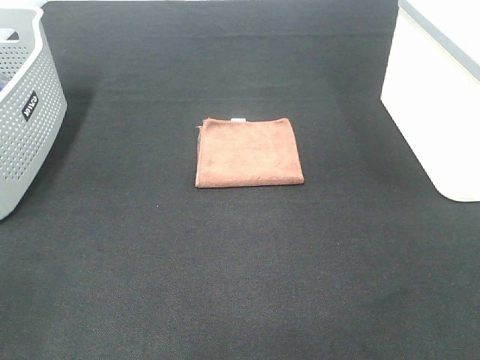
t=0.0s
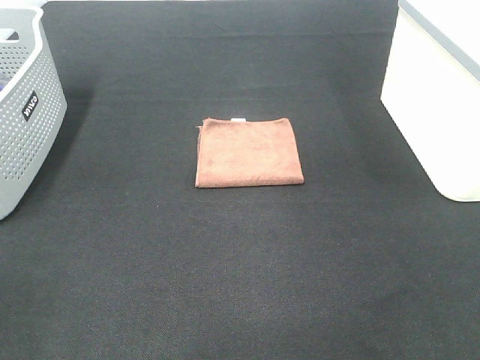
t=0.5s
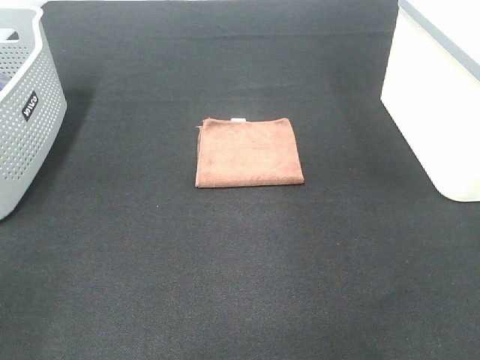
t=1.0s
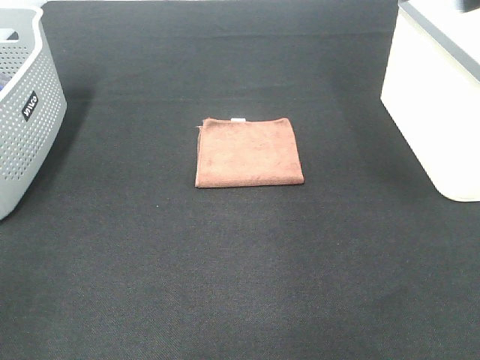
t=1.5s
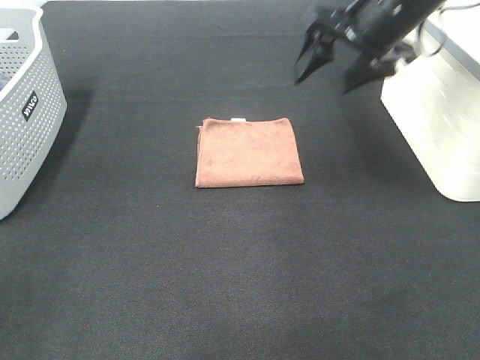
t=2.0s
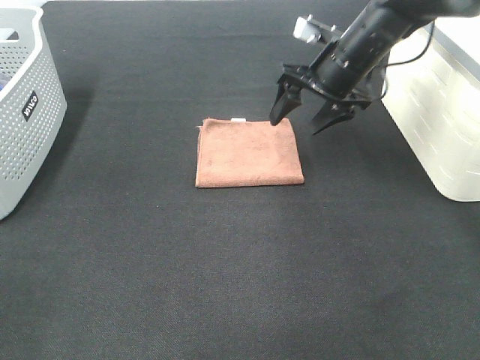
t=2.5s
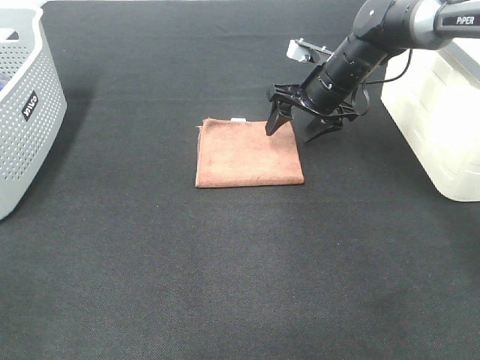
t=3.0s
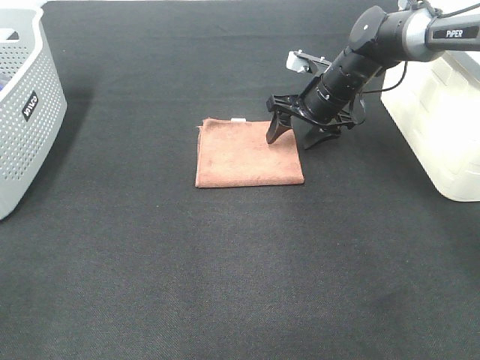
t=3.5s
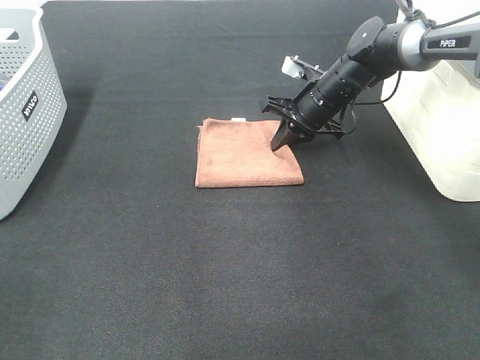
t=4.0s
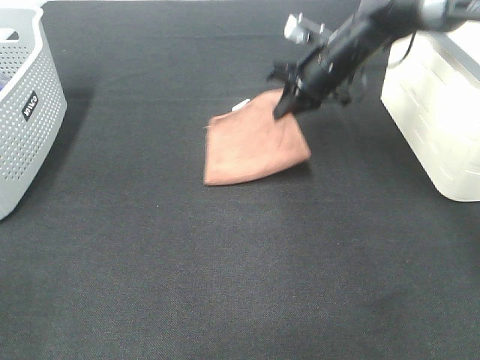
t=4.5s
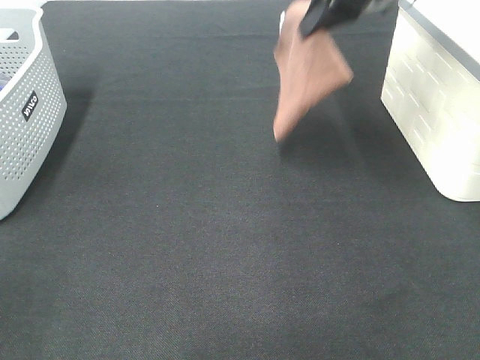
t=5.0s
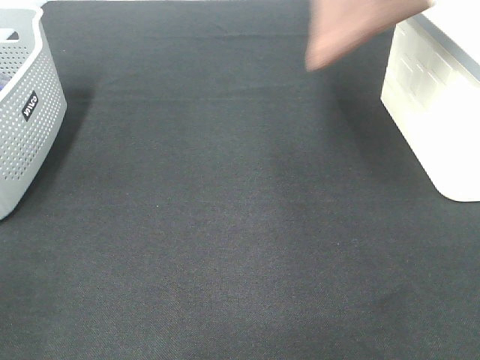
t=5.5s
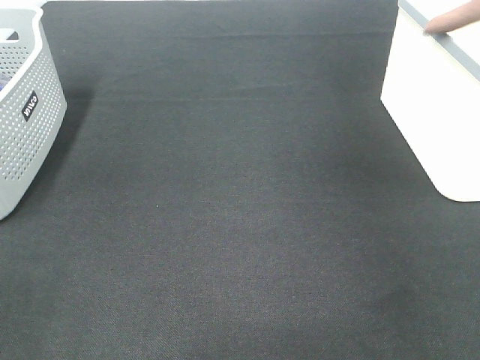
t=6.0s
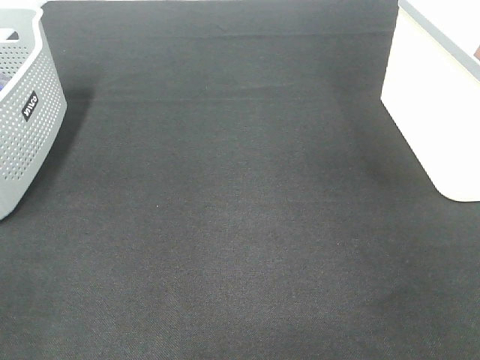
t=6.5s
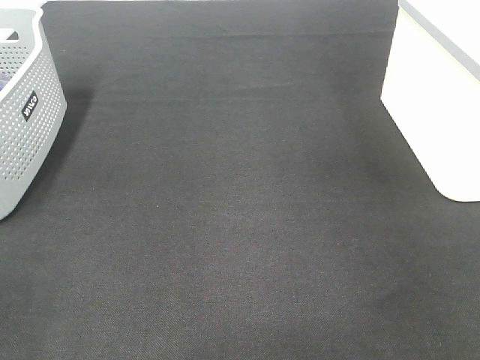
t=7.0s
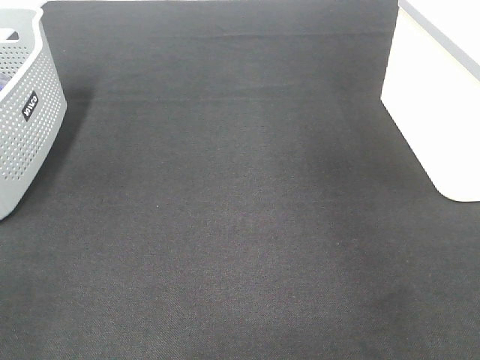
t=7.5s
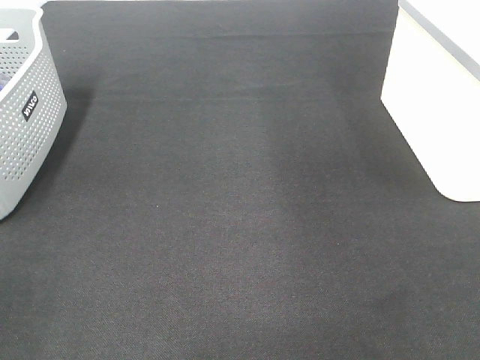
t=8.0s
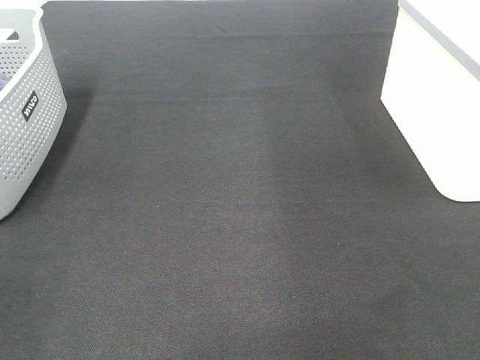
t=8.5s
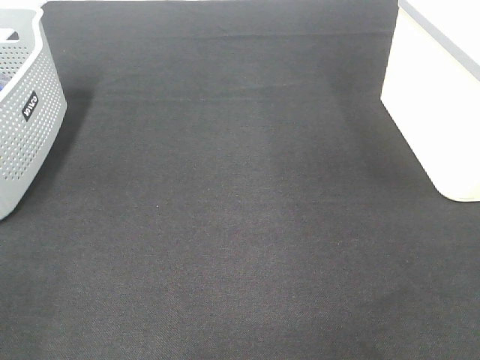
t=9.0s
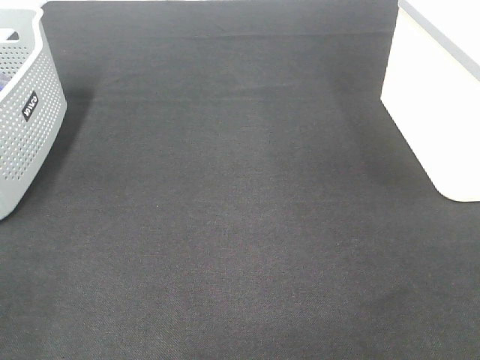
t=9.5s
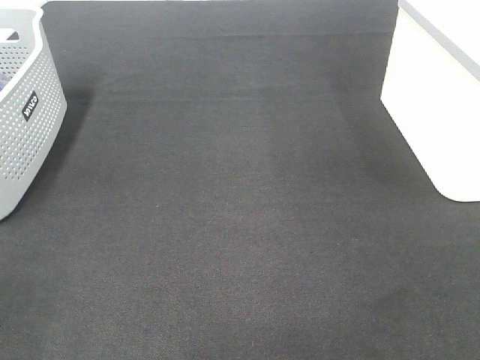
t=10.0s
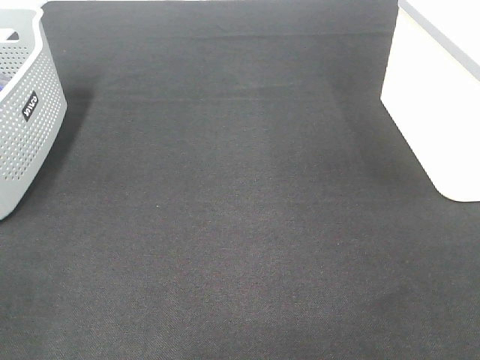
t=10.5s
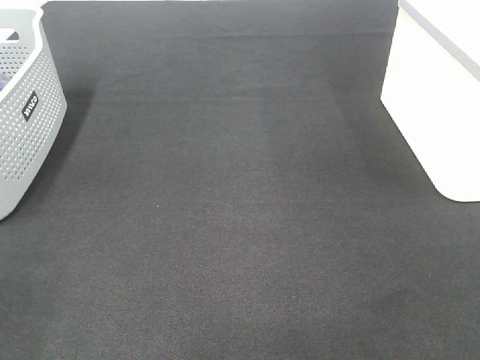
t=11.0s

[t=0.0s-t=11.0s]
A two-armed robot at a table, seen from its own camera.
Step, t=0.0s to t=4.0s: Right hand: grab the folded brown towel.
Step, t=4.5s to t=6.5s: Right hand: place the brown towel in right basket.
t=0.0s to t=2.0s: The right gripper moves forward, about 40 cm.
t=2.0s to t=3.5s: The right gripper travels downward and forward by some 20 cm.
t=3.5s to t=5.5s: The right gripper is displaced upward by some 30 cm, and closes up.
t=5.5s to t=7.5s: The right gripper moves to the right, roughly 10 cm, and opens.

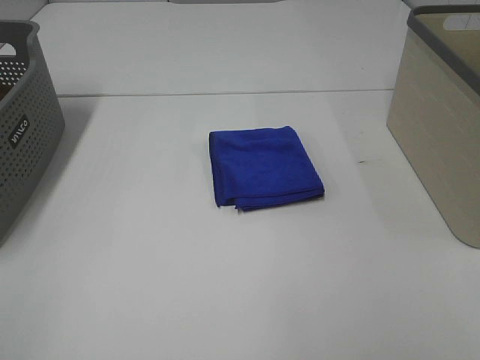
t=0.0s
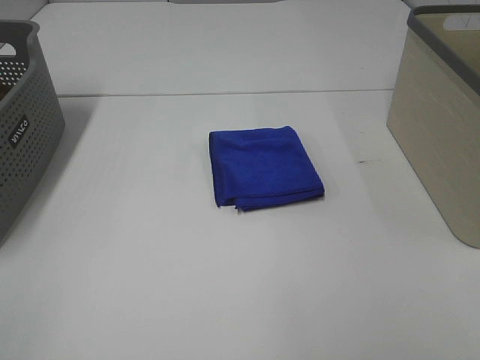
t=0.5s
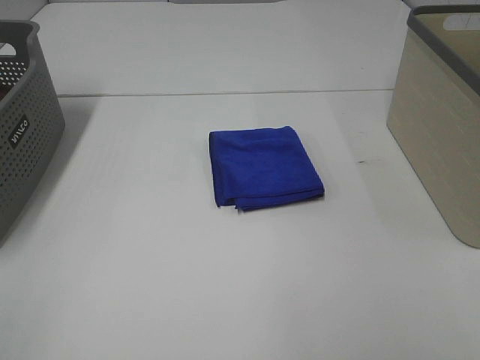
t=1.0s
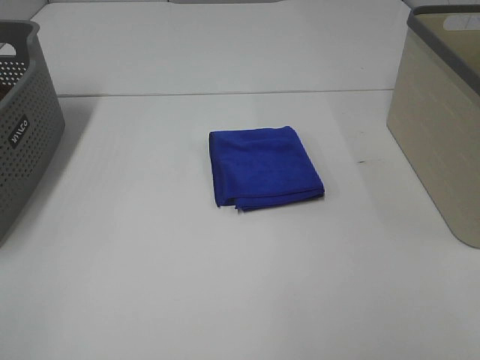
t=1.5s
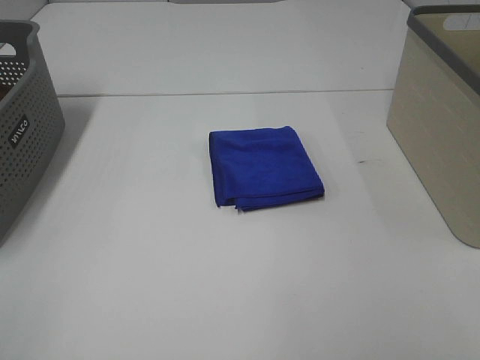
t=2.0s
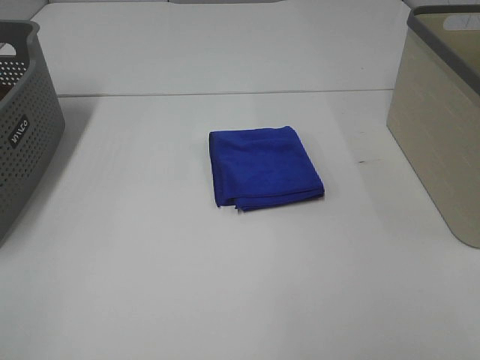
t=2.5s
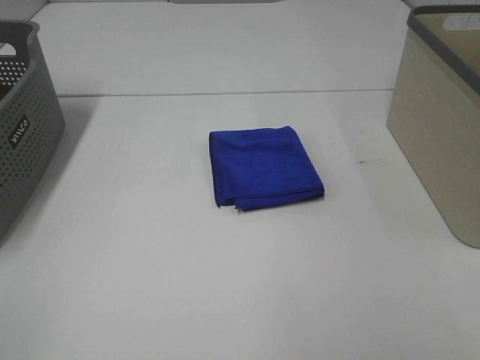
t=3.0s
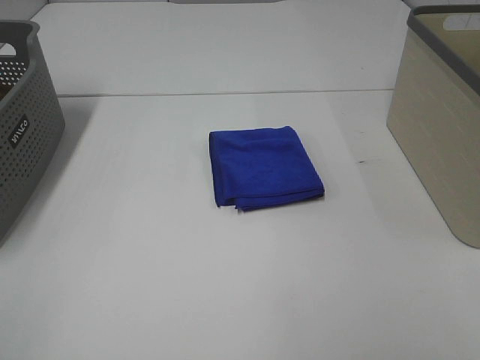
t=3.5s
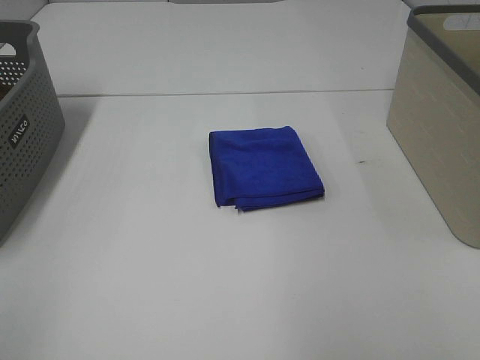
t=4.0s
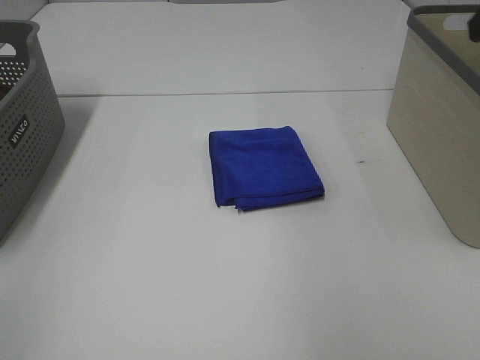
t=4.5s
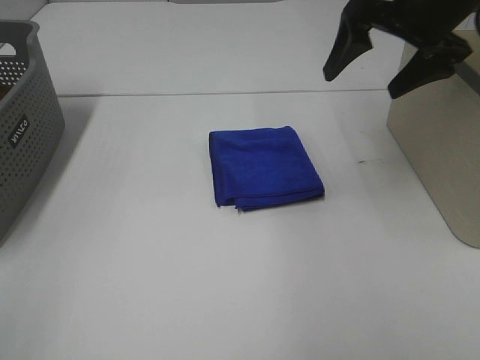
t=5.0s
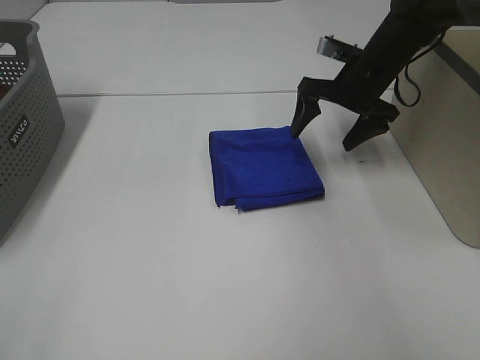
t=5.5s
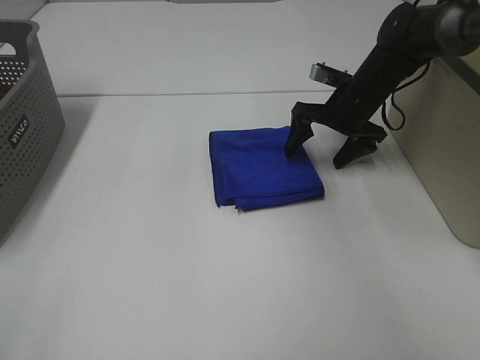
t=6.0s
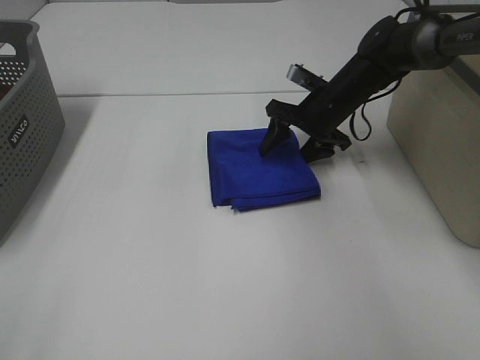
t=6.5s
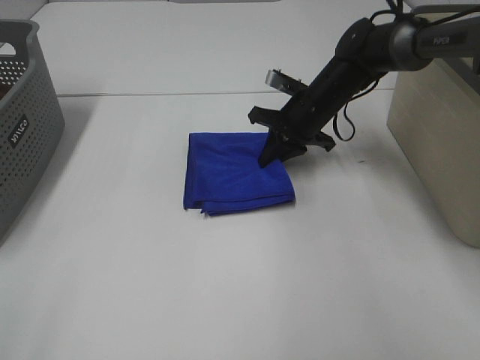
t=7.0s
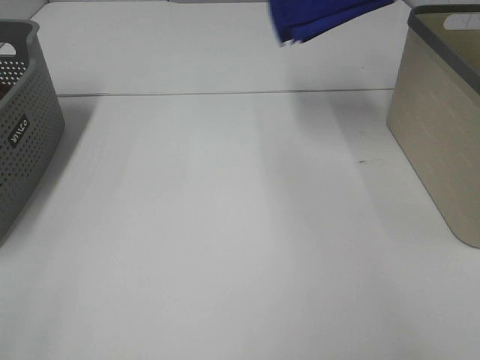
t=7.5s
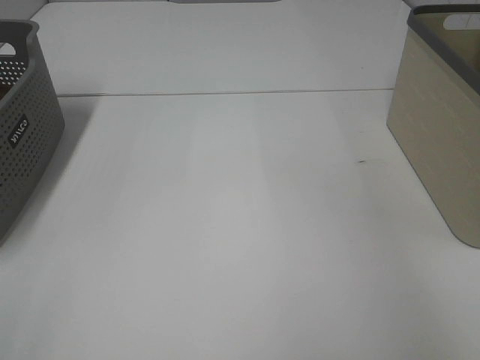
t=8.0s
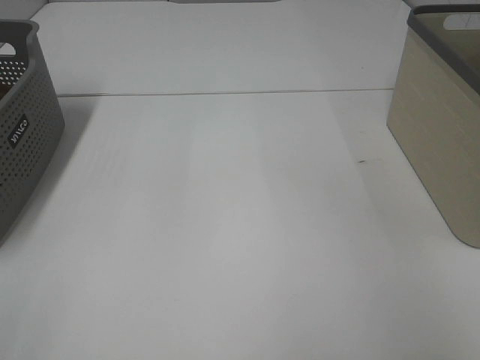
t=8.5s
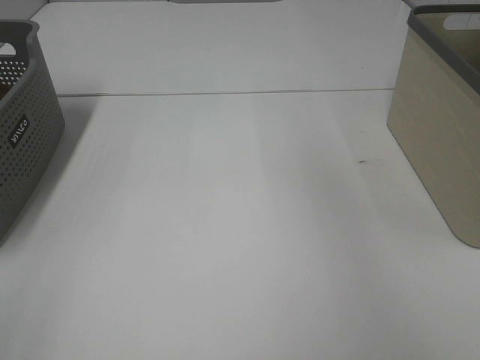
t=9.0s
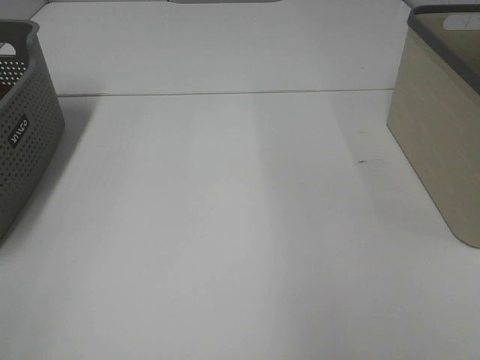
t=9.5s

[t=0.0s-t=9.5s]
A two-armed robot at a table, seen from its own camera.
Step, t=0.0s to t=6.5s: Right hand: grab the folded blue towel.
Step, t=7.0s to t=8.5s: Right hand: place the blue towel in right basket.
t=0.0s to t=2.0s: The two grippers keep their place.
t=4.0s to t=5.5s: The right gripper heads forward and downward, covering some 40 cm.
t=5.5s to t=7.5s: The right gripper heads upward, covering some 25 cm, and closes up.
t=7.5s to t=9.5s: The right gripper shifts roughly 25 cm backward, and opens.

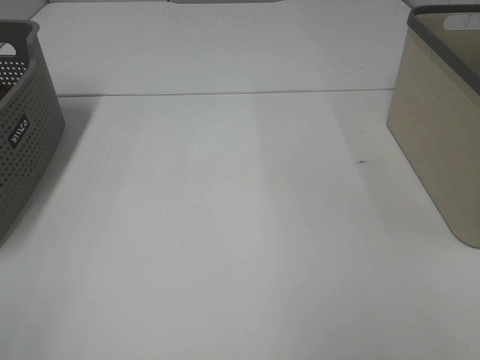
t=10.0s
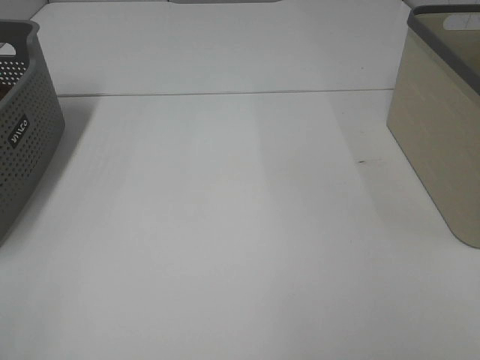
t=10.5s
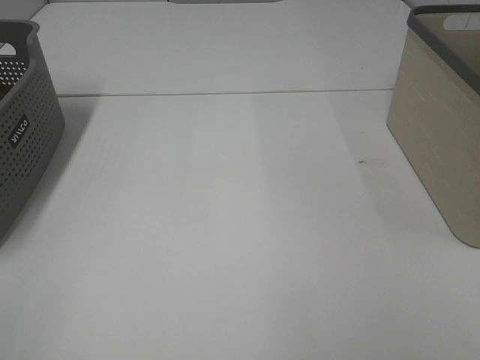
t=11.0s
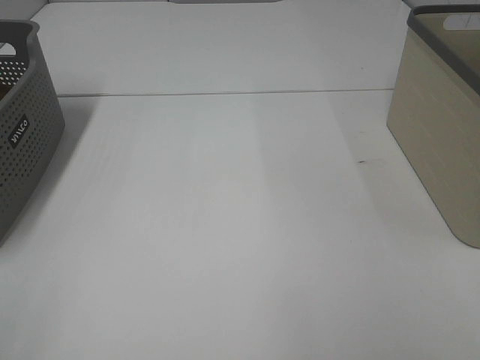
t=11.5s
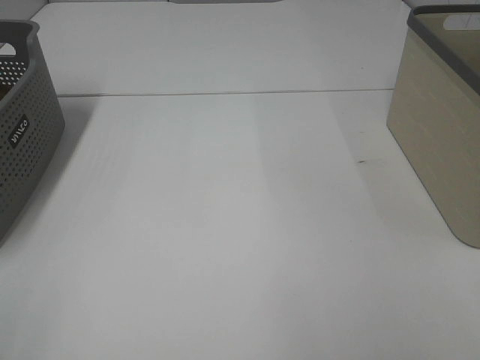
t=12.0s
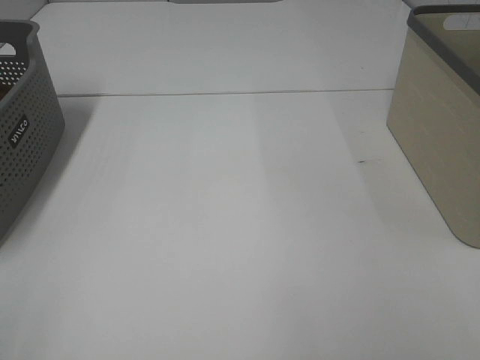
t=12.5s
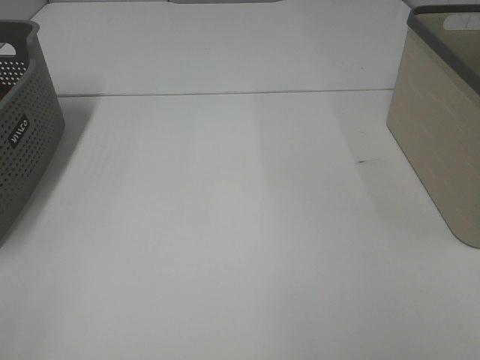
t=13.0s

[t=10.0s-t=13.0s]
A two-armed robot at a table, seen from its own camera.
t=11.5s to t=13.0s: Both grippers stay about where they are.

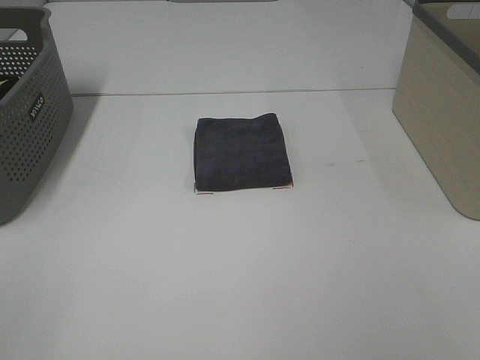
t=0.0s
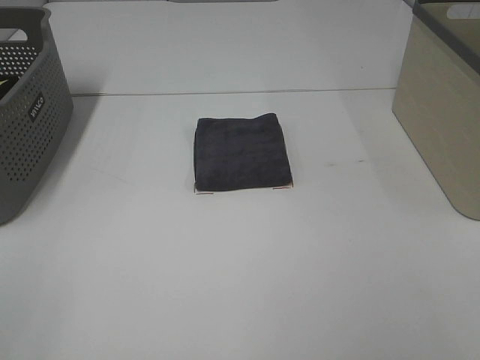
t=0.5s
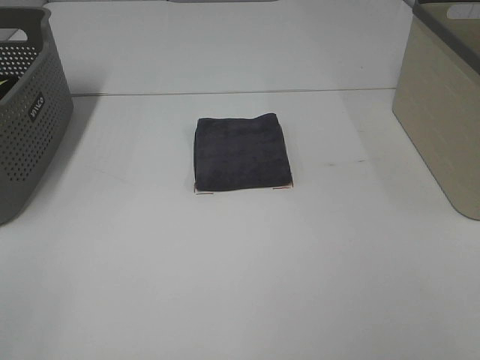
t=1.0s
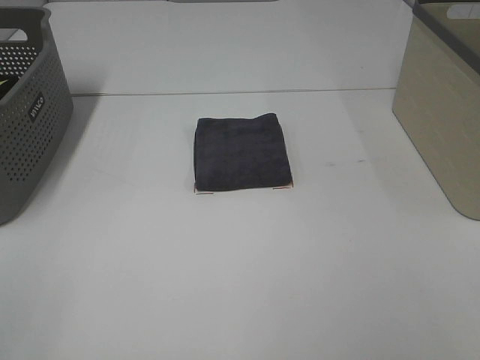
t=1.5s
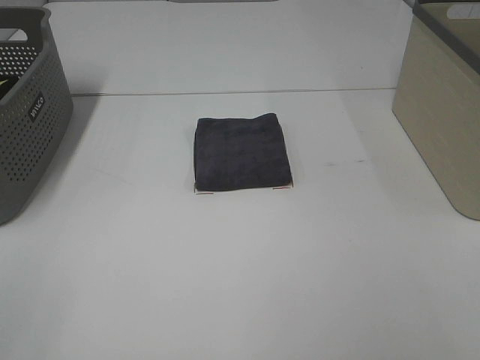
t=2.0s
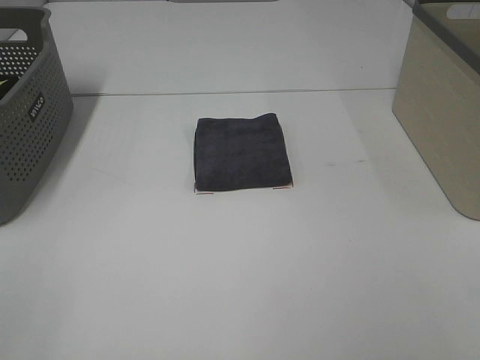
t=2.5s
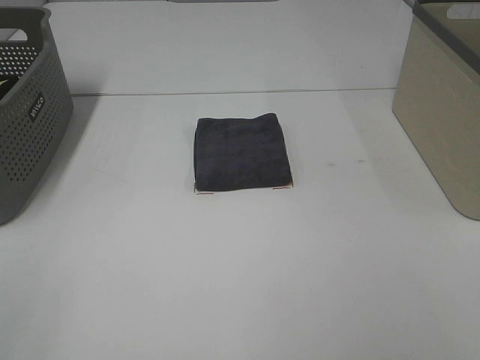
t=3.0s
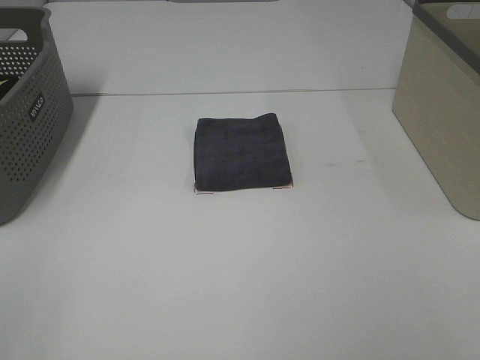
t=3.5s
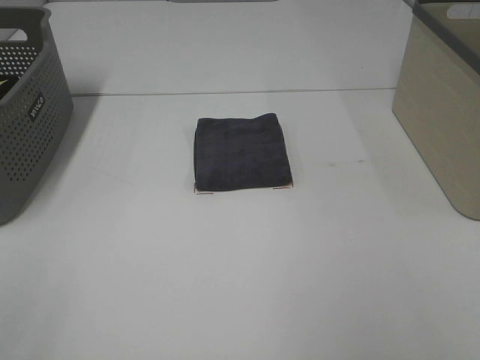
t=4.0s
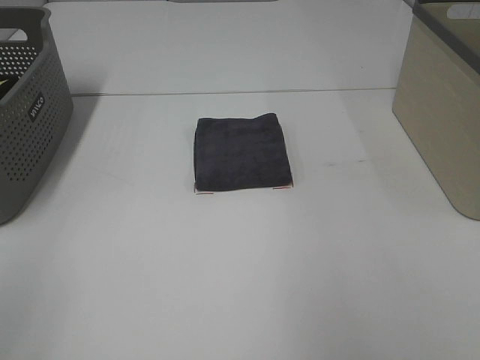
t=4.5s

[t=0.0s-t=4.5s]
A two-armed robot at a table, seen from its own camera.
t=0.0s to t=2.0s: Both grippers stay about where they are.
